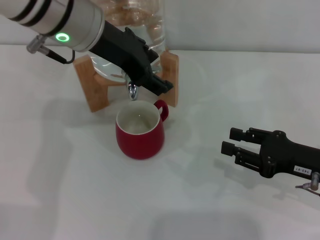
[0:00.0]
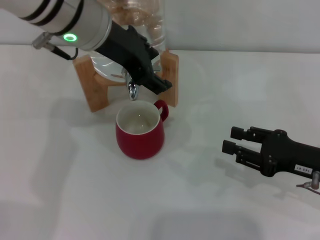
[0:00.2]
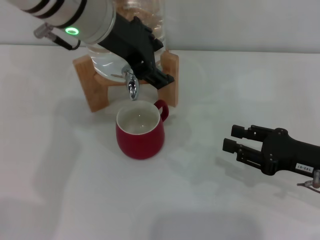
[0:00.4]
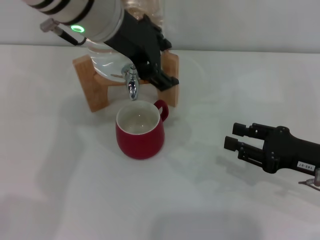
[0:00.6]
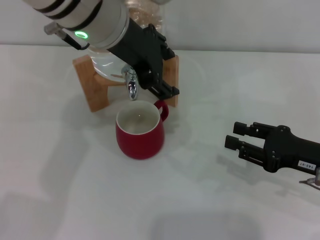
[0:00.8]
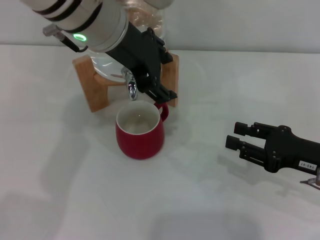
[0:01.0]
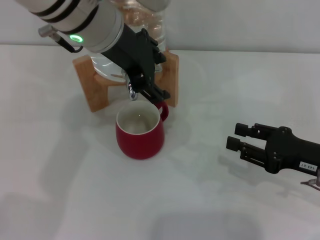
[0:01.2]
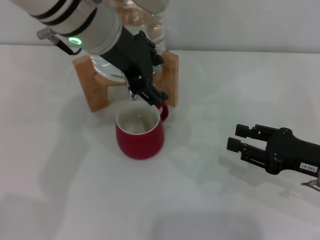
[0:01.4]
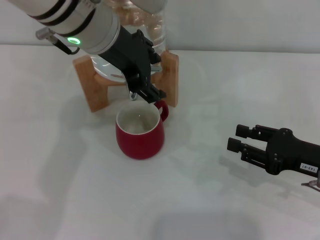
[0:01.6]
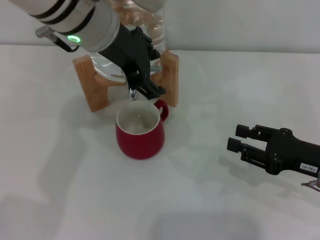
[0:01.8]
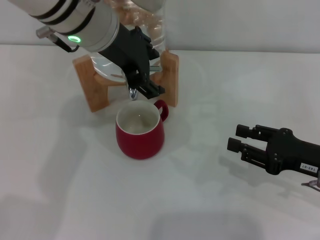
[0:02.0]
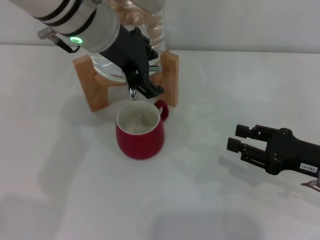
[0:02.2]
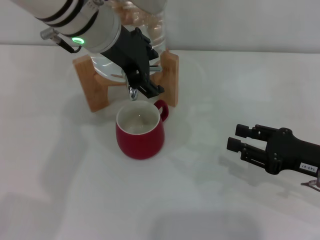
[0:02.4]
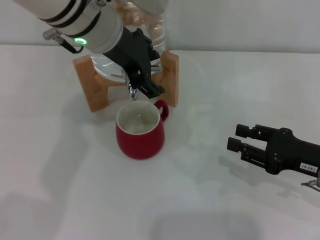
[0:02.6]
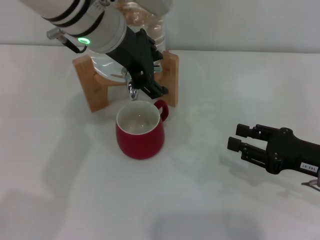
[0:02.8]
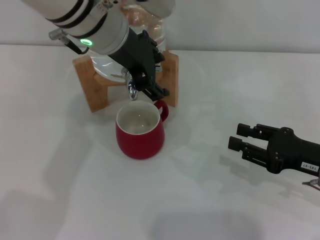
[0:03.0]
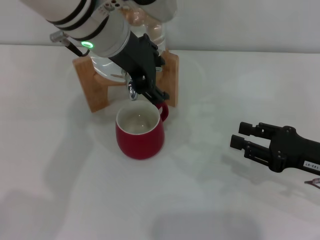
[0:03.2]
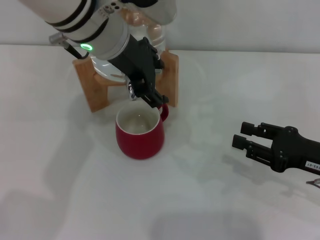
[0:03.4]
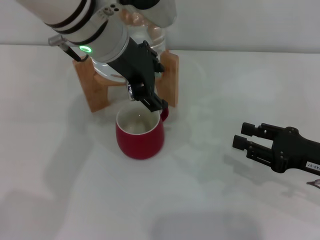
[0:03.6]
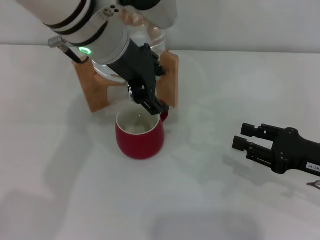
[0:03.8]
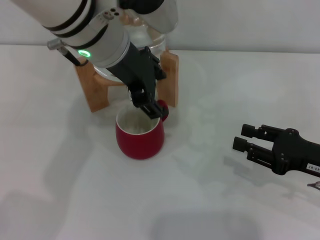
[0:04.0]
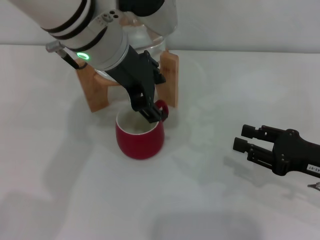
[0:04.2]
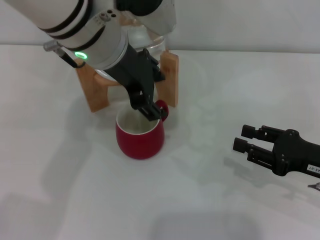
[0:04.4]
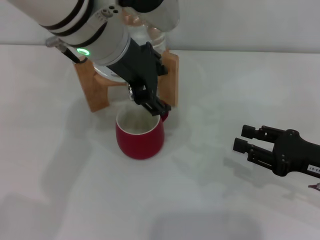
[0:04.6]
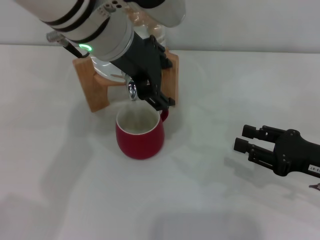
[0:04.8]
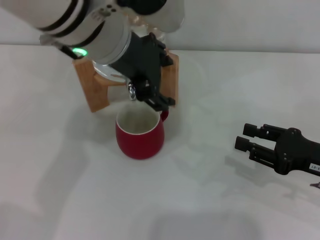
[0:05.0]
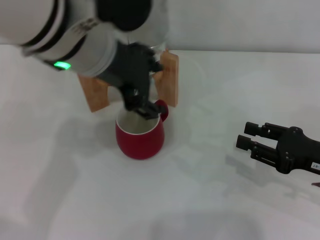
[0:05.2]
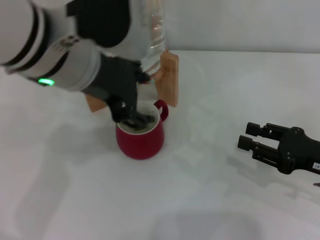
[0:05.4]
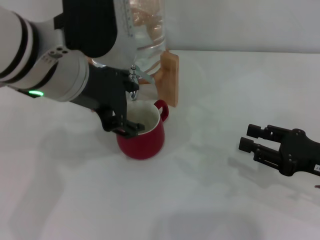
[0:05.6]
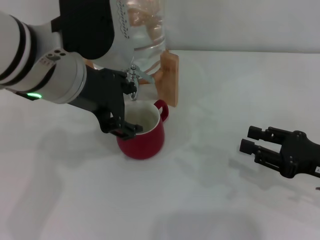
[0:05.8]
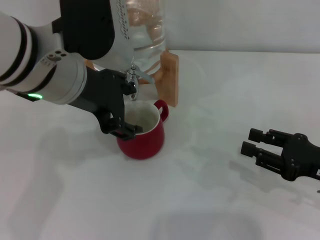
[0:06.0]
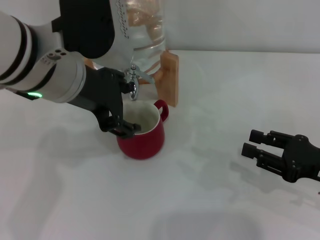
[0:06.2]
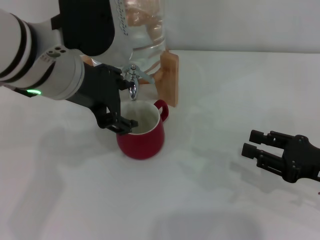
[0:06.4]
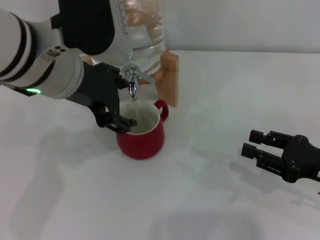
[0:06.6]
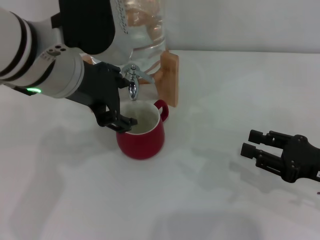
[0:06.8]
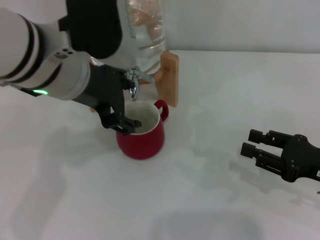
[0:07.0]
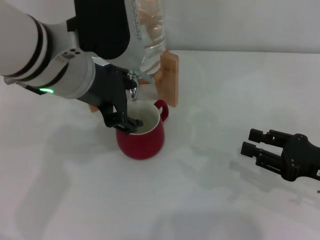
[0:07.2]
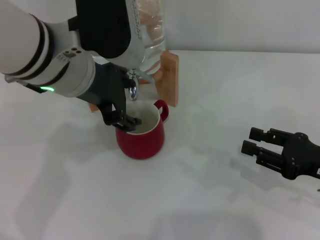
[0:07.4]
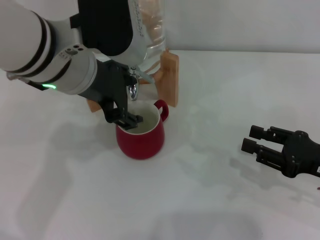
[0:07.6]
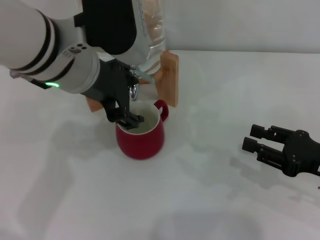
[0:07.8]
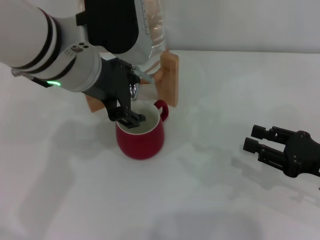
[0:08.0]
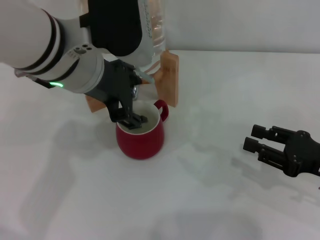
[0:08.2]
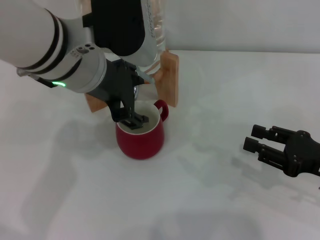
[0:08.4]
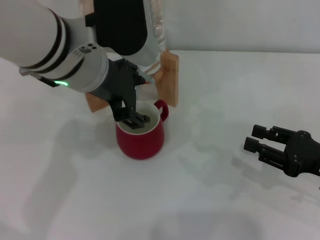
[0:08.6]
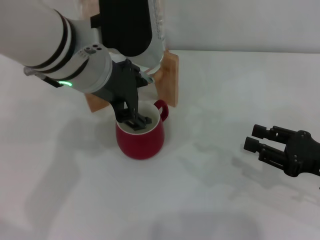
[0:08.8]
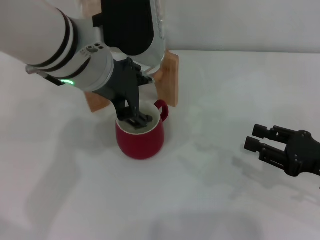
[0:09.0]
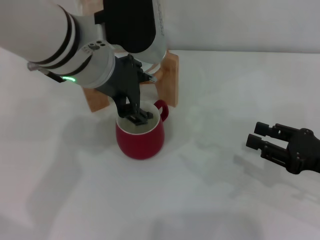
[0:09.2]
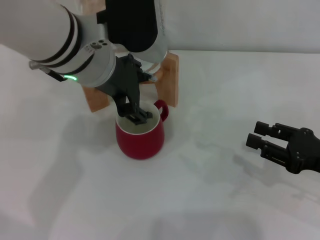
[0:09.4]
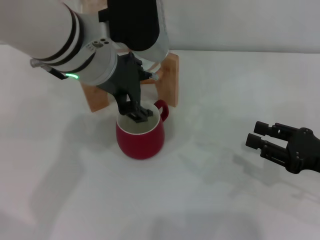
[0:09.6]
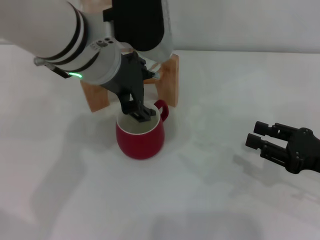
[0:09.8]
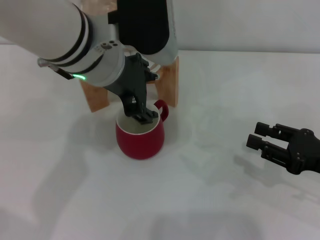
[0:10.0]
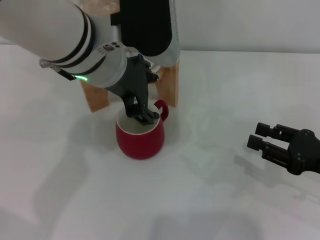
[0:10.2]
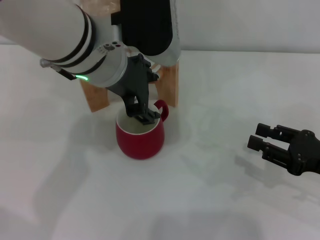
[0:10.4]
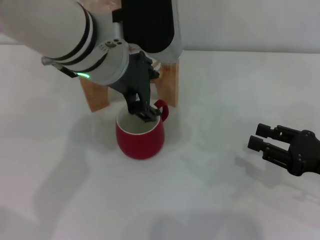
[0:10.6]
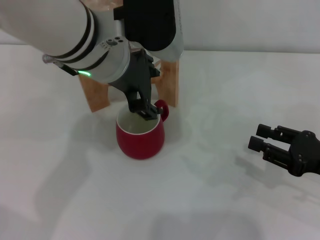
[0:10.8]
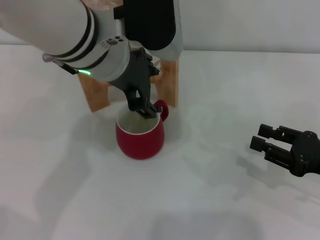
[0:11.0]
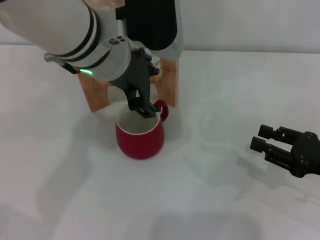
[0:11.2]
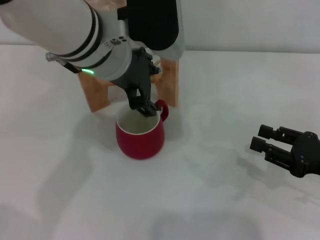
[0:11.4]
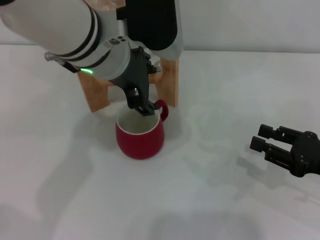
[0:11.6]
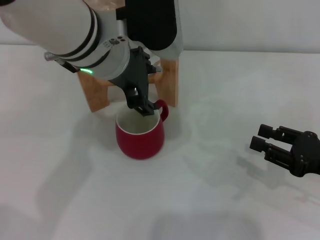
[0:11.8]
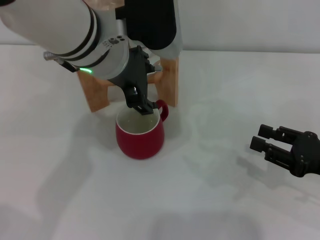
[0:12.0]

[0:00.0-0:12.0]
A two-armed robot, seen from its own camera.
Task of the whole recording: the right gripper pick up the red cup and place it horizontally under the faucet, the left gripper turn on the faucet to fill the cup, and then turn off the faucet.
Step, 0:00.0 to 0:05.8: Open the dispenser valve and fill the cup with water with the left gripper.
0:01.6 to 0:04.4: The grippers make only small movements.
0:04.4 to 0:06.0: The left gripper travels backward by approximately 5 cm.
0:06.0 to 0:10.4: The grippers make only small movements.
0:10.4 to 0:12.0: Both grippers stay put.

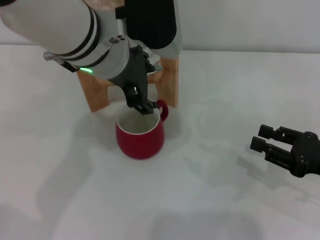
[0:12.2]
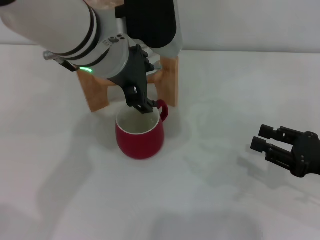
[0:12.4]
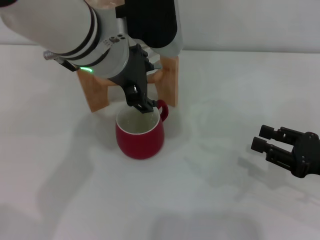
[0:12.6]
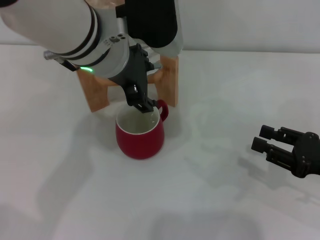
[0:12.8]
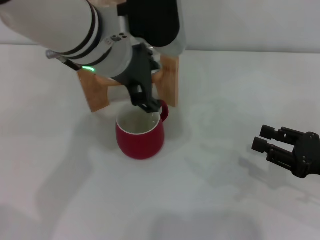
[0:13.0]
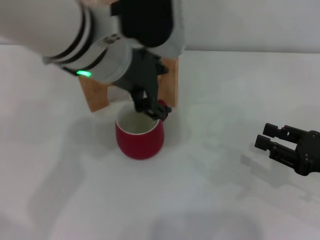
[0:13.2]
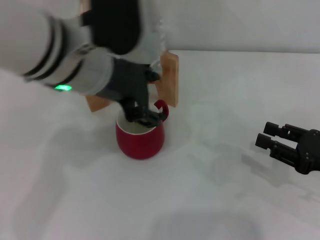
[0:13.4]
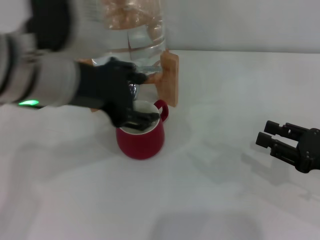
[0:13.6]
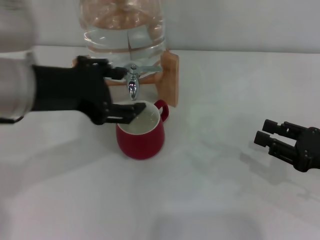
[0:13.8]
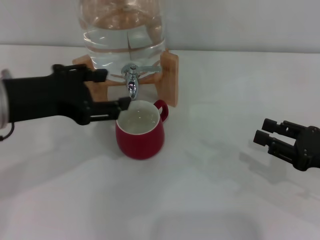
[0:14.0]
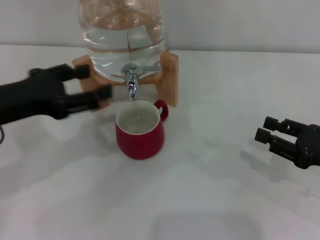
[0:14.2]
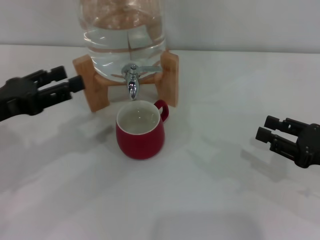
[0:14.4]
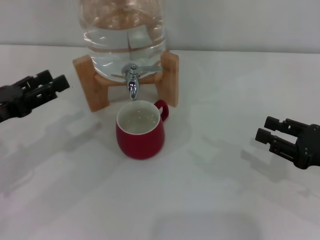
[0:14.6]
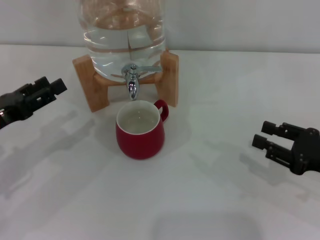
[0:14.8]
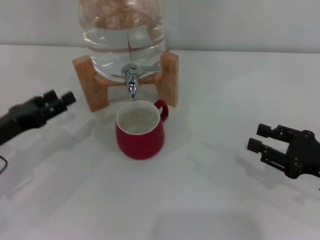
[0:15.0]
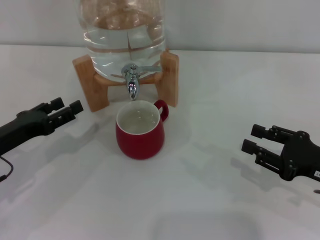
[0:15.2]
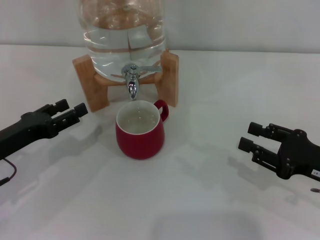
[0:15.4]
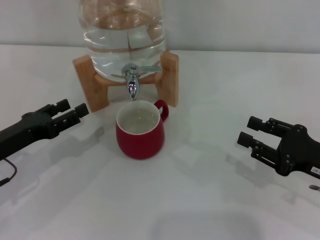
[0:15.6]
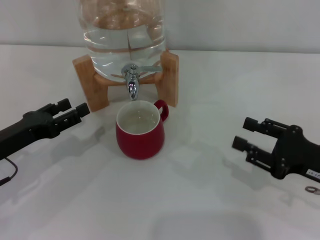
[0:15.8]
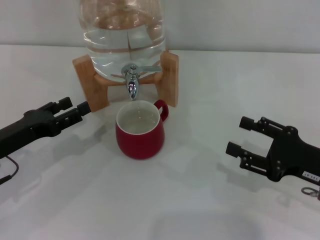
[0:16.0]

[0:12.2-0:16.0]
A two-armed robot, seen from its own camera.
Task of the whole recording: the right gripper pick up the red cup and place it horizontally under the faucet, the left gripper turn on the faucet to fill the cup, and then turn off the faucet.
0:12.2 to 0:13.4: The grippers make only small movements.
0:13.4 to 0:14.8: The left gripper goes approximately 25 cm to the left and downward.
0:14.8 to 0:16.0: The grippers move only a little.
